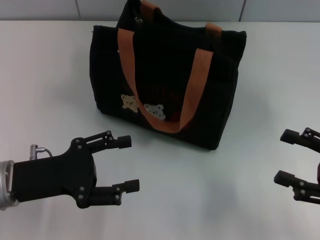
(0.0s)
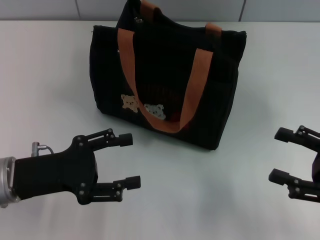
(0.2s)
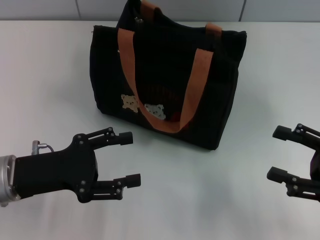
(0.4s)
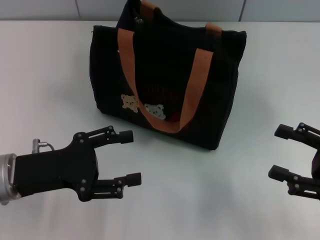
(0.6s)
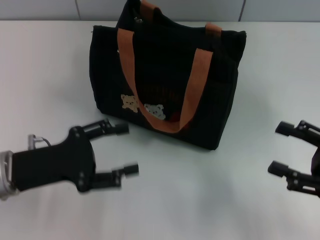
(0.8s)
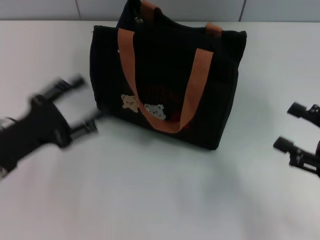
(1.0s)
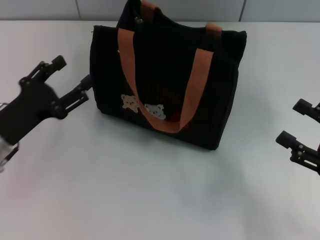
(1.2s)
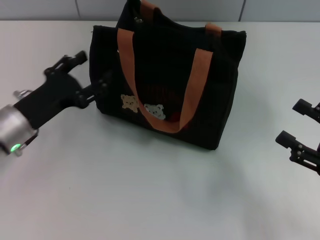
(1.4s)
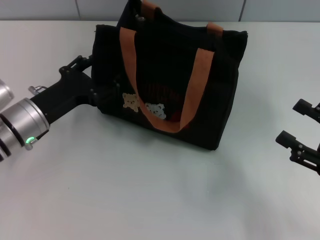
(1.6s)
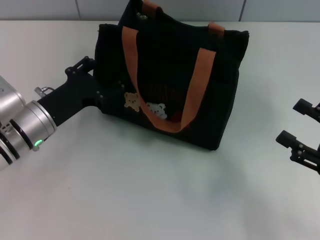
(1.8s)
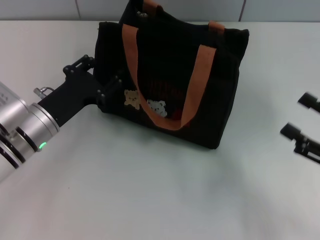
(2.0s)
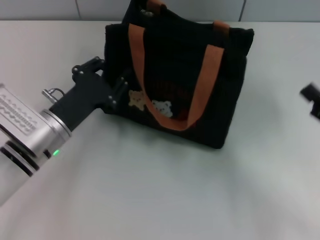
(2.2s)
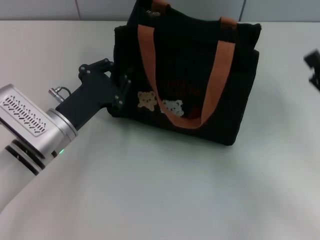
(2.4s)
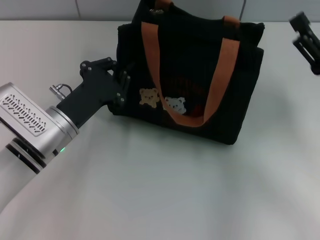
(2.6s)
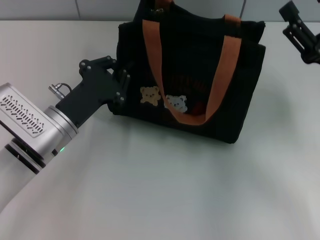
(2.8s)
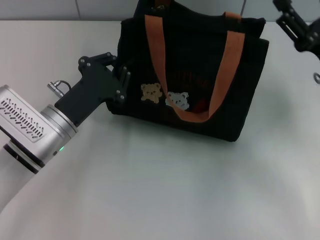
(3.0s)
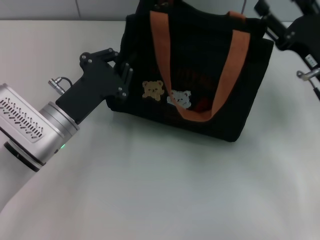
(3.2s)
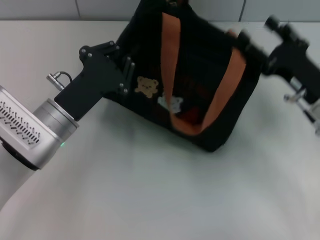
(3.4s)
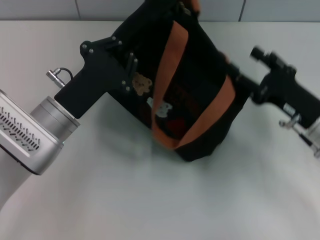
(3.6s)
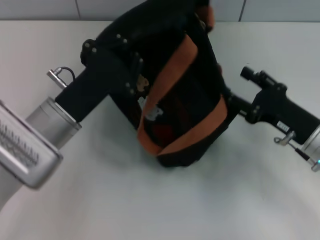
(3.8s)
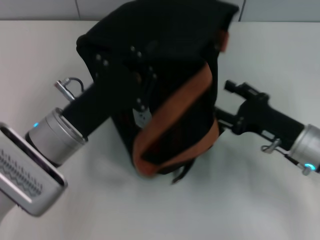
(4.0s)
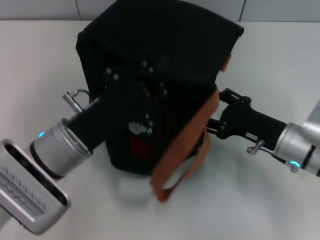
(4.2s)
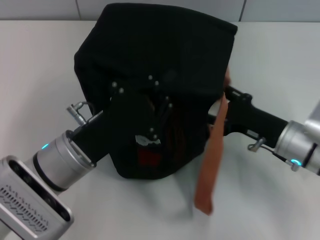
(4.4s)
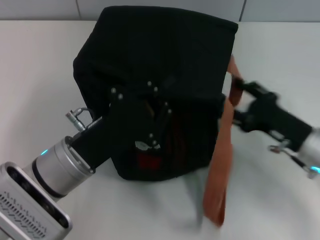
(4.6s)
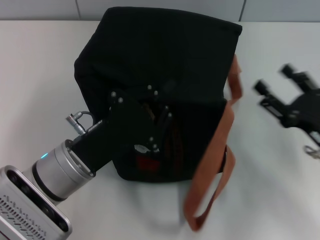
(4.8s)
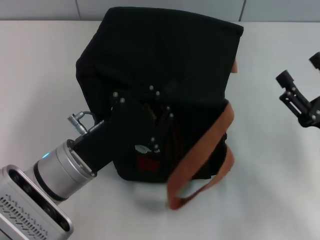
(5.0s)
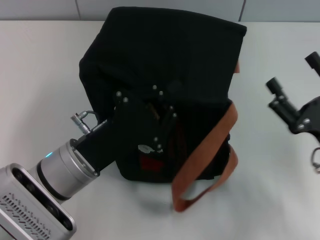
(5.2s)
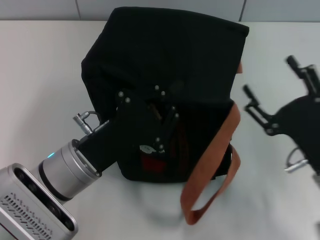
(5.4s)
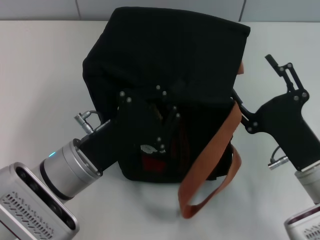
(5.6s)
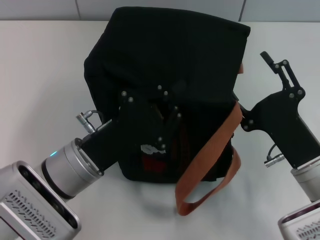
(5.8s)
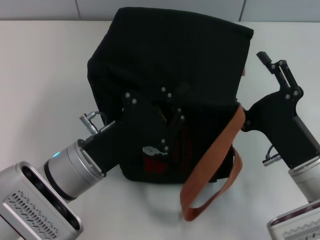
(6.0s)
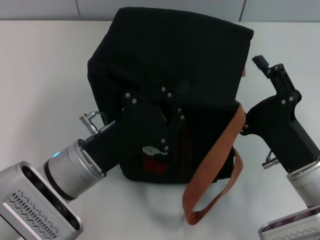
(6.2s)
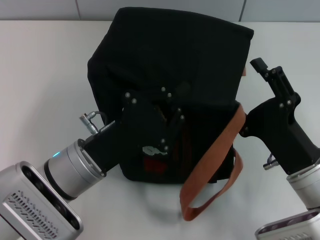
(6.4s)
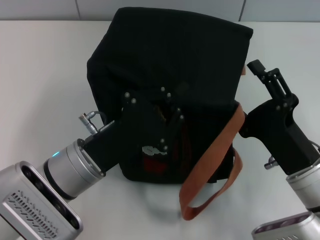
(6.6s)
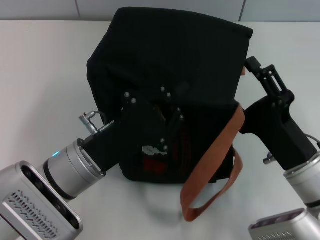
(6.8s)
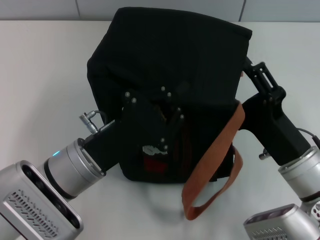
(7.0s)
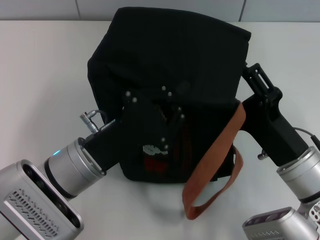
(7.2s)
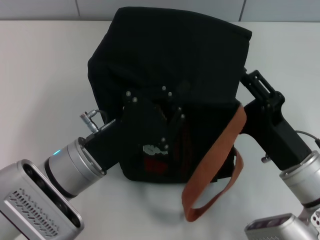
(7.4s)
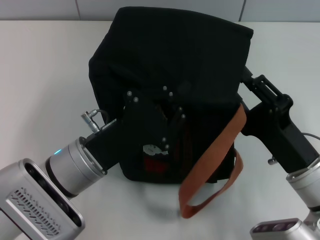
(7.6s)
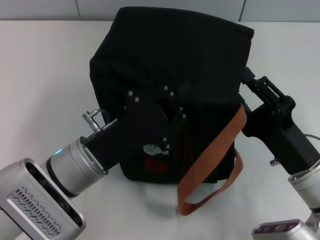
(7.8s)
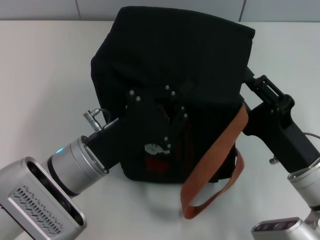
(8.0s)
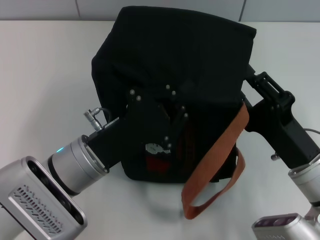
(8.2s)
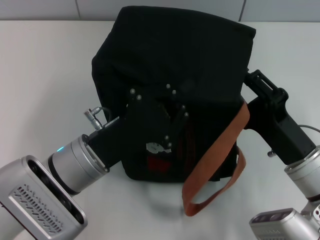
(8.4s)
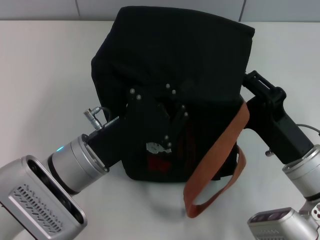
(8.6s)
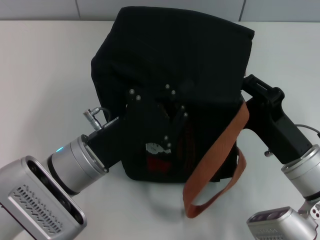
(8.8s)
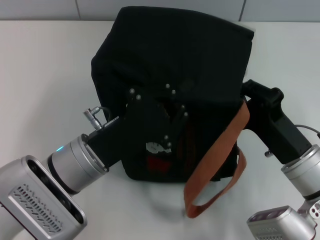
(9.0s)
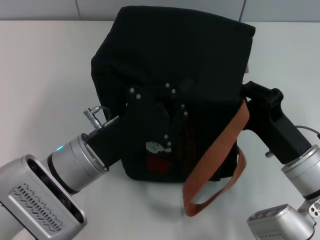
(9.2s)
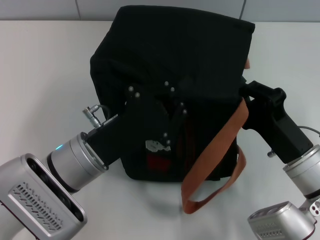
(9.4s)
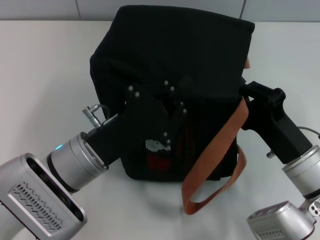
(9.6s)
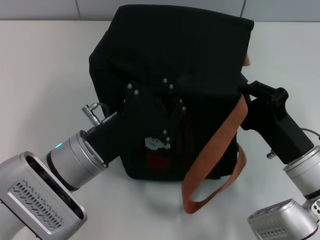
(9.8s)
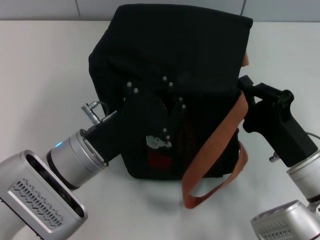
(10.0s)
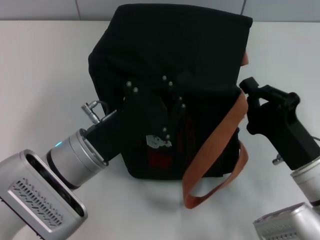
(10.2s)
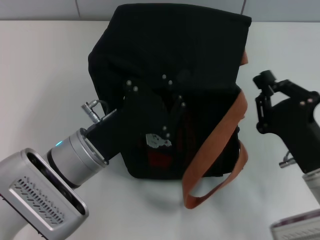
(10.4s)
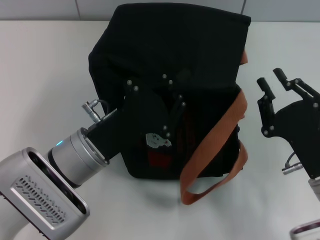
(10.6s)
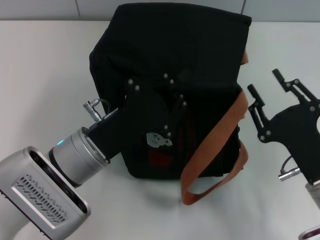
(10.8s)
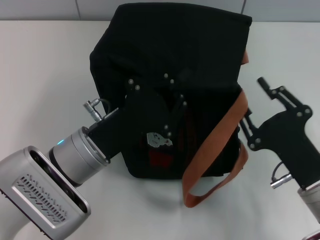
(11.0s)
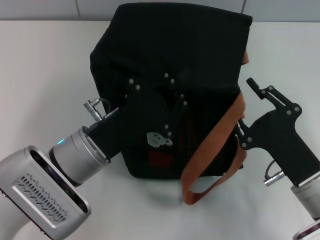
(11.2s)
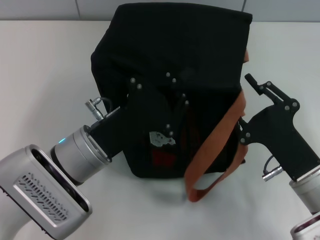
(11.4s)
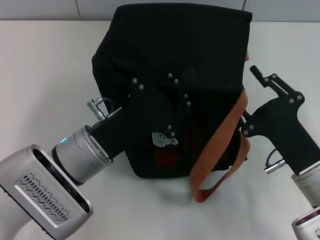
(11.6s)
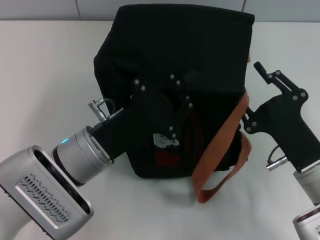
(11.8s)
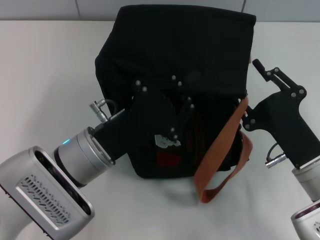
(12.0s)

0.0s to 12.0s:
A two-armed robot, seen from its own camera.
0.0s to 1.6s: The left gripper goes approximately 10 cm forward.
1.6s to 3.0s: The right gripper heads forward and to the left, covering about 15 cm; the left gripper ends up roughly 5 cm from where it was, and closes its fingers.
3.0s to 4.4s: The right gripper goes about 5 cm downward; the left gripper shifts by some 5 cm.
4.4s to 6.0s: The right gripper heads backward, covering roughly 10 cm.
7.6s to 9.0s: The right gripper closes its fingers.
10.4s to 12.0s: The right gripper opens.

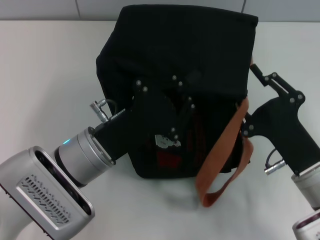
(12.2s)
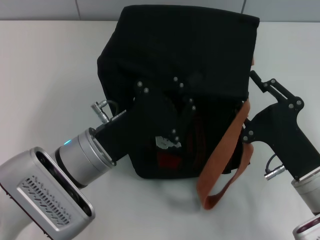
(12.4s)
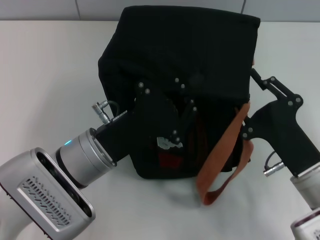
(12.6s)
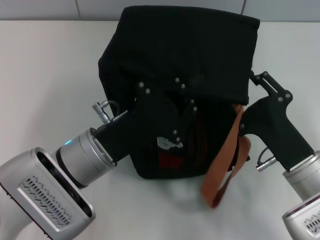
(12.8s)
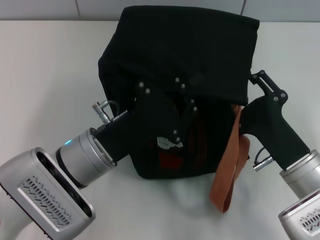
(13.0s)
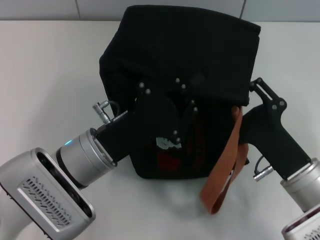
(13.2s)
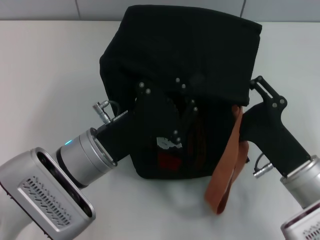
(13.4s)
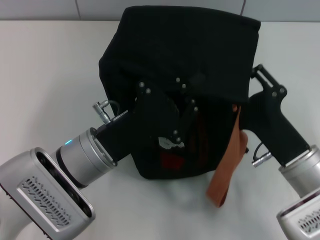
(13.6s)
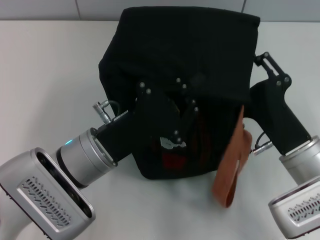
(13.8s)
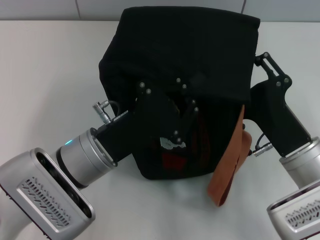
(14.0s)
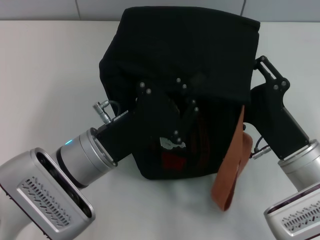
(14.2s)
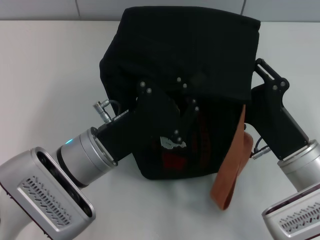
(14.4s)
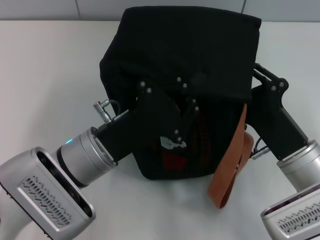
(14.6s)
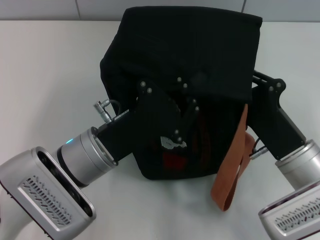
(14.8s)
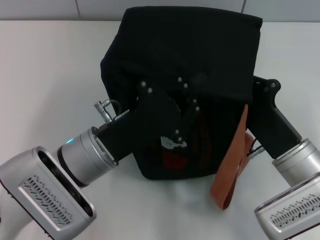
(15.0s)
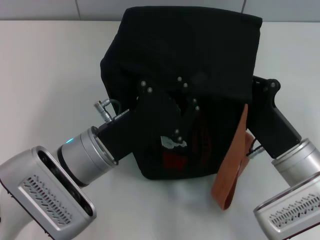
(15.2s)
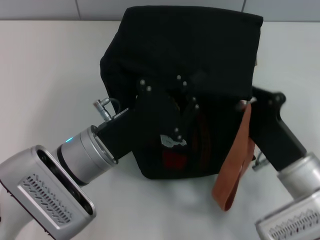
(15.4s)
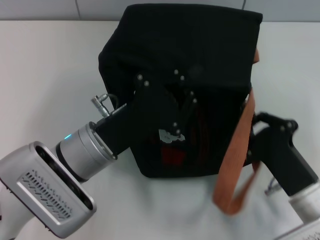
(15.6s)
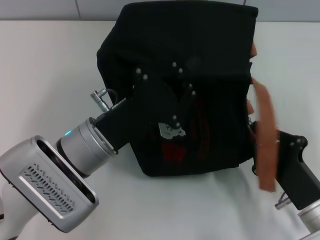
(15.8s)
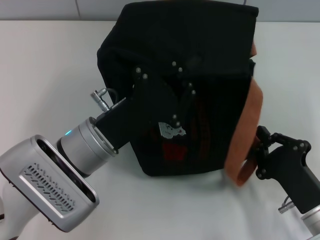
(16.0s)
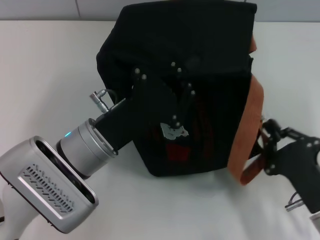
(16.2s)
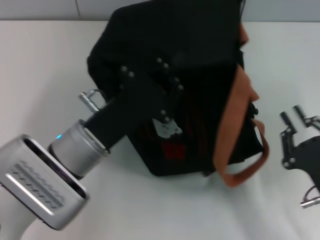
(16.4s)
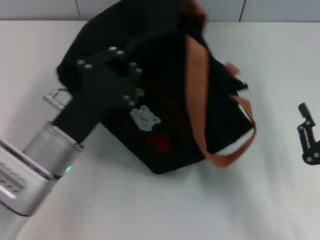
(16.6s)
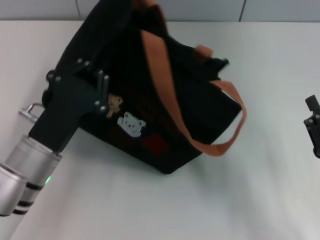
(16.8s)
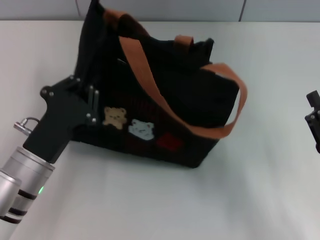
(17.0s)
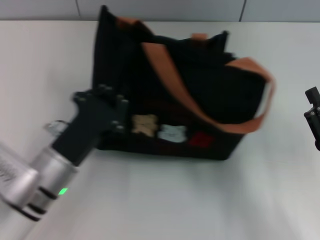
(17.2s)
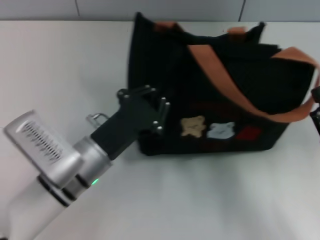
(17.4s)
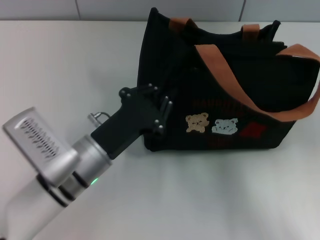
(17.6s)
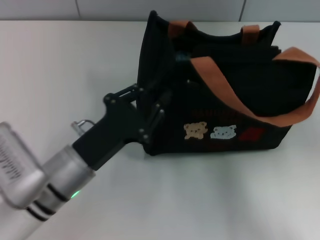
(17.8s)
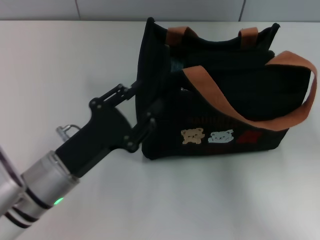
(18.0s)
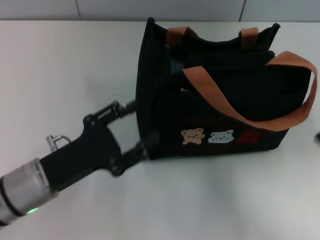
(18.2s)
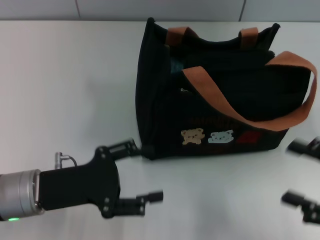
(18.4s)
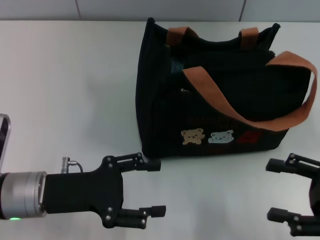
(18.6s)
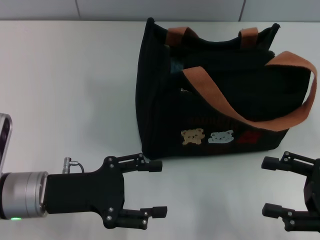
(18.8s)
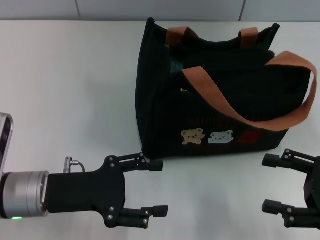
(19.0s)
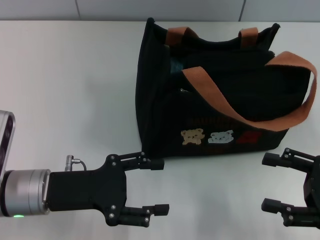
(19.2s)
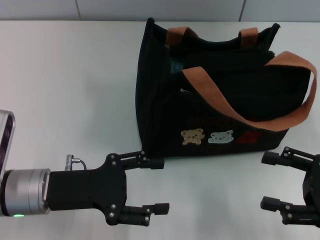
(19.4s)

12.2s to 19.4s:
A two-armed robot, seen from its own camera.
Step, 12.2s to 16.2s: Pull open the zipper with your right hand.
Step, 16.4s to 18.0s: Grab the bag with your left hand.
12.2s to 13.6s: The grippers stay close to where they were, moving slightly.
13.6s to 15.0s: The right gripper closes.
15.0s to 16.6s: The right gripper is displaced backward and to the right by approximately 10 cm.
16.6s to 18.0s: The left gripper swings left and right, about 5 cm each way, with 2 reversals, while the right gripper travels to the right by some 5 cm, and opens.
18.0s to 19.4s: The left gripper opens its fingers; the right gripper ends up some 5 cm from where it was.
